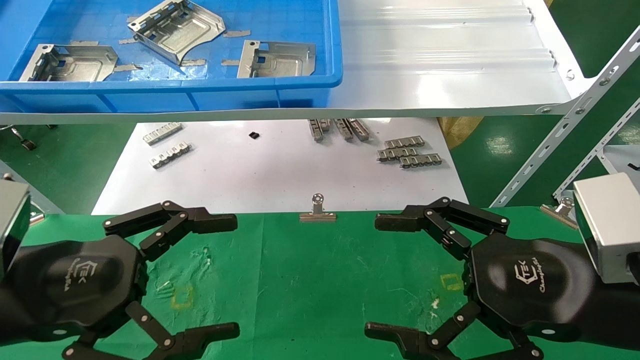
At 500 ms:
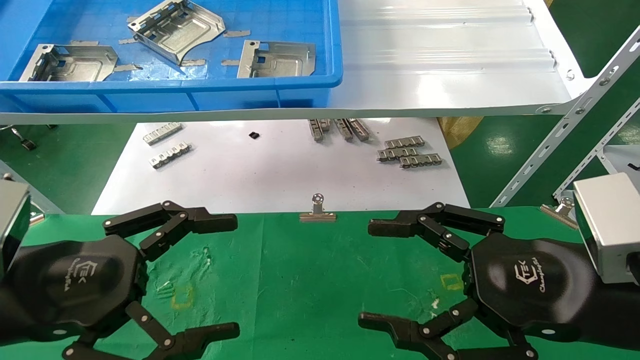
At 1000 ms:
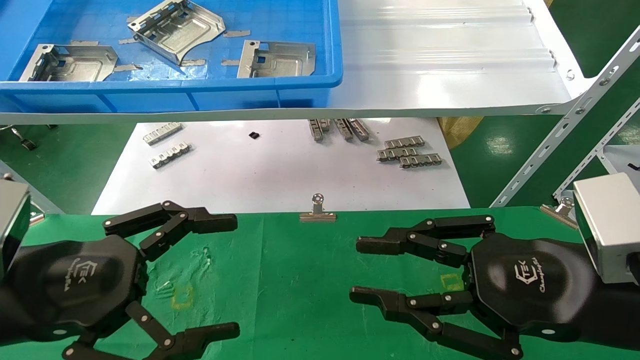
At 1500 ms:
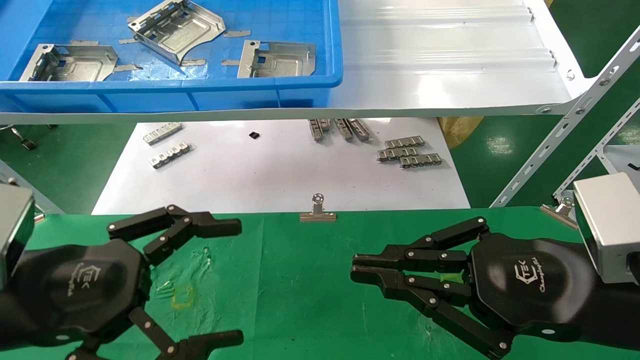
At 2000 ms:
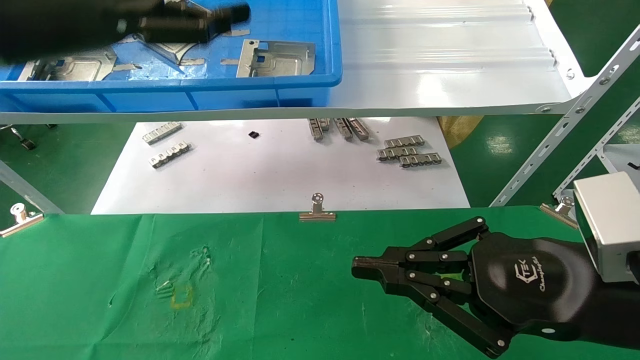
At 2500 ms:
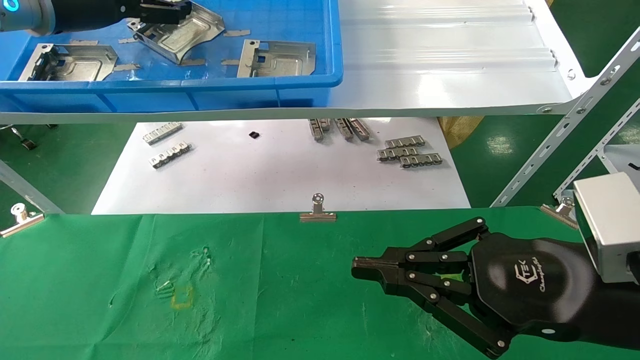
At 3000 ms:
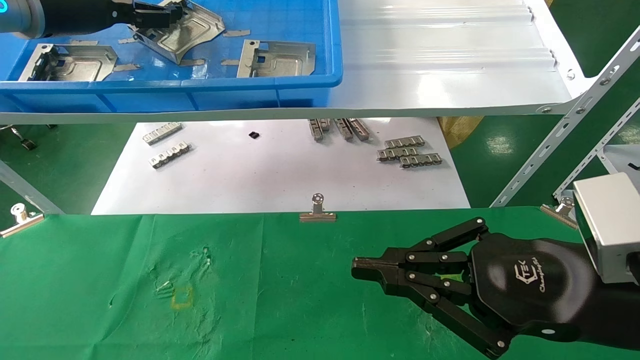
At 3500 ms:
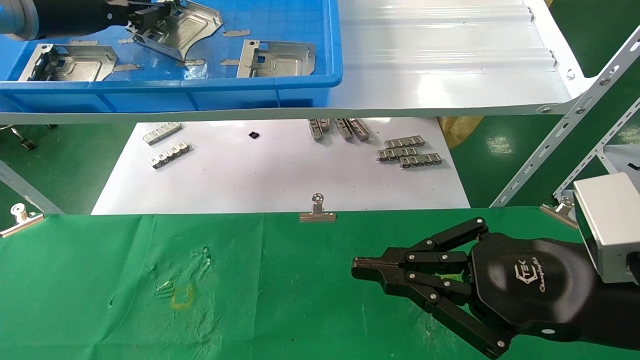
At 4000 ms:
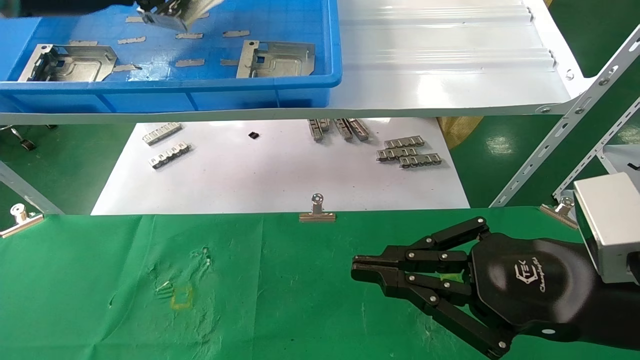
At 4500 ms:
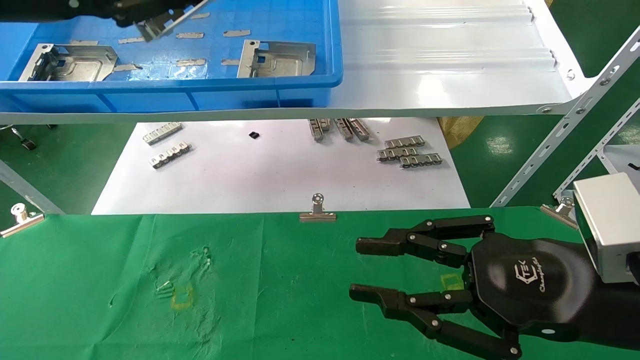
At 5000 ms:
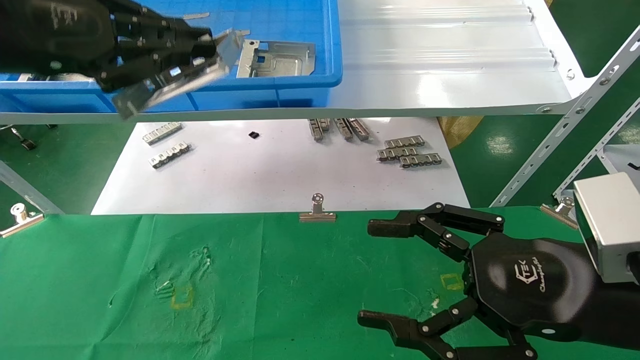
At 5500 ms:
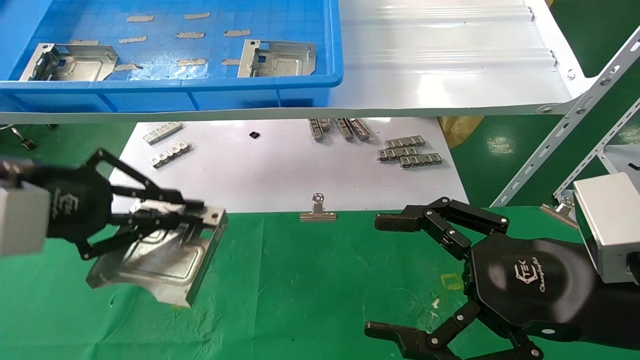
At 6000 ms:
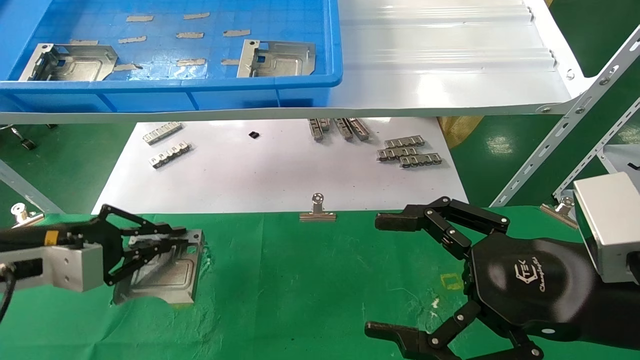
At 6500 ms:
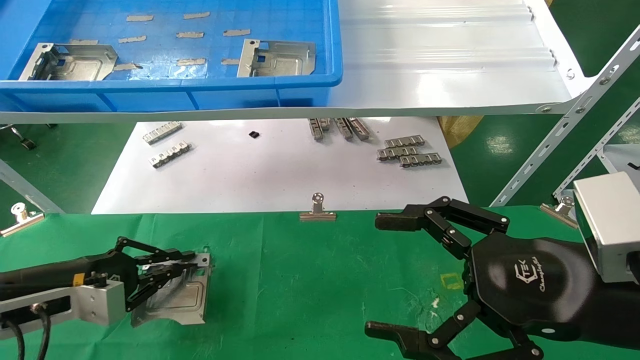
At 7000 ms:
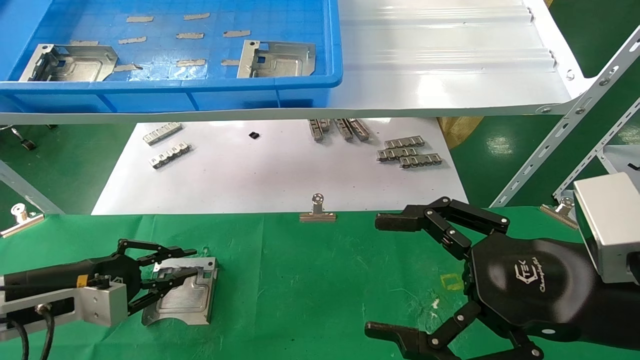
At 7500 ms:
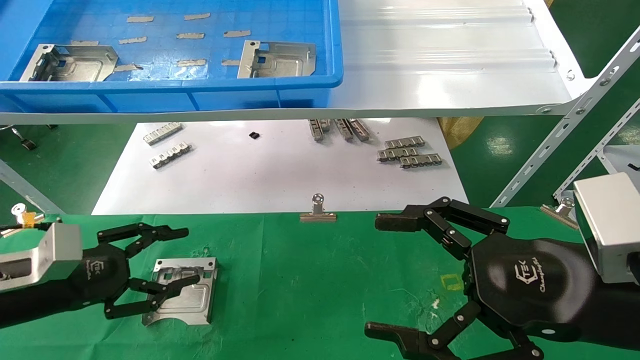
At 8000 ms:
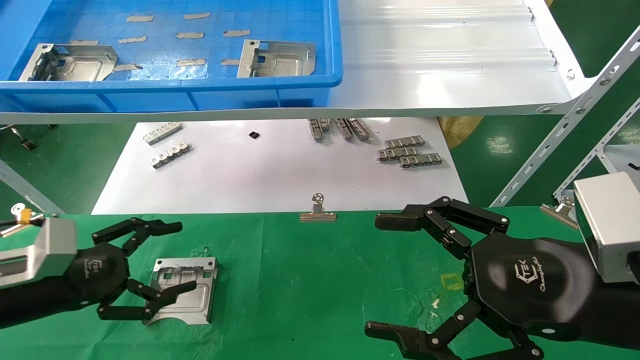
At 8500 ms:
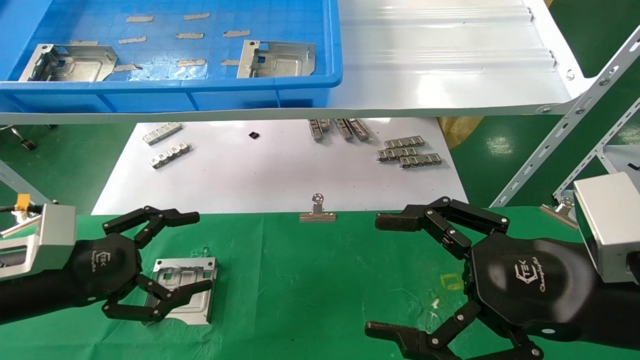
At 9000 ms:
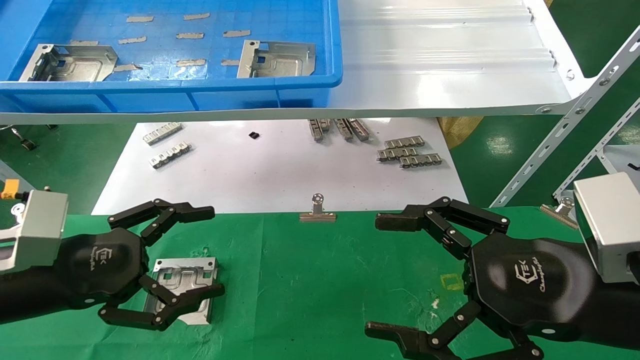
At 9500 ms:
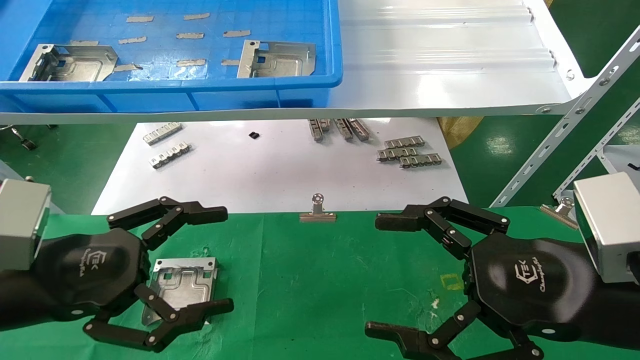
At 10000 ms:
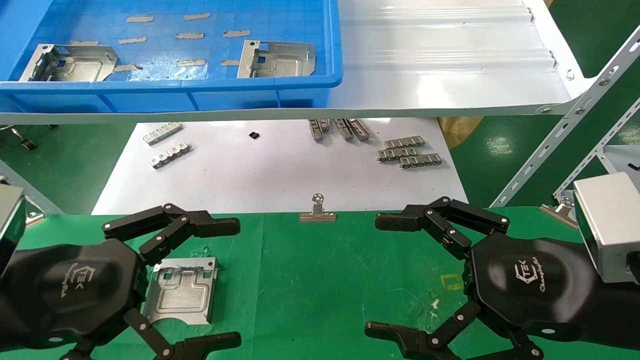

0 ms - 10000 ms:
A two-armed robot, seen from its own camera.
Task of the whole recording: use the mechanical arm to pick up the parts and place them on the table.
Step, 2000 ms - 3500 ms: Pick up the hard drive bracket from the feeding area.
Step, 4000 ms - 6500 ms: Place the hard drive bracket into the box.
0 ms - 2000 ms: The right gripper closes up; the left gripper is displaced upward and forward by some 25 cm.
2000 ms - 4000 ms: The left gripper is displaced upward by roughly 5 cm, and closes its fingers.
4000 ms - 6000 ms: The right gripper opens. The left gripper heads downward, covering some 30 cm.
6000 ms - 8000 ms: The left gripper opens its fingers.
8000 ms - 10000 ms: The left gripper shifts about 15 cm backward, to the right and upward.
